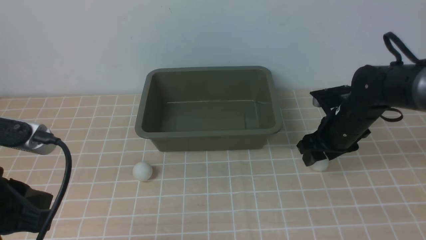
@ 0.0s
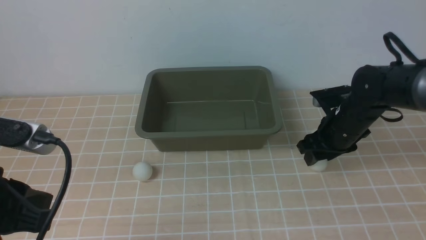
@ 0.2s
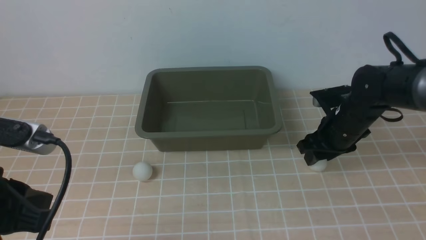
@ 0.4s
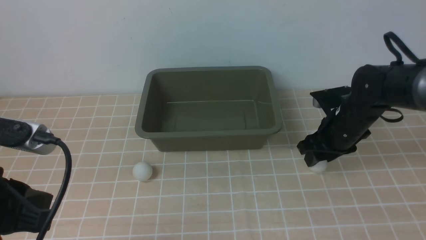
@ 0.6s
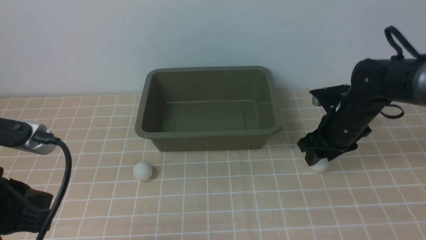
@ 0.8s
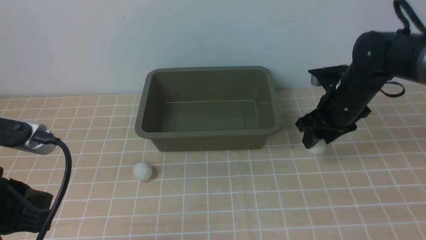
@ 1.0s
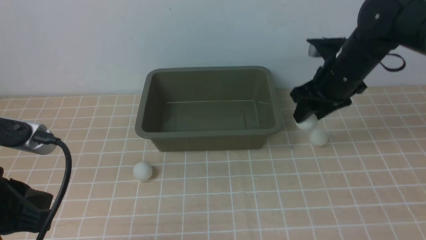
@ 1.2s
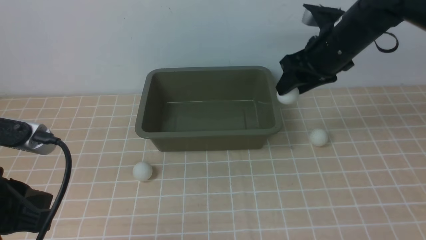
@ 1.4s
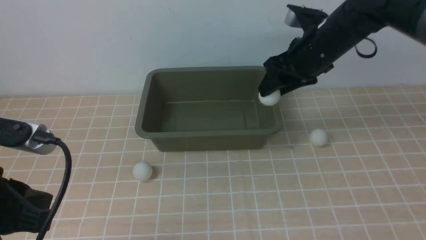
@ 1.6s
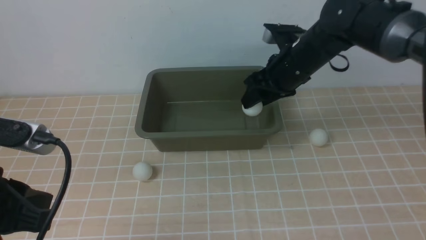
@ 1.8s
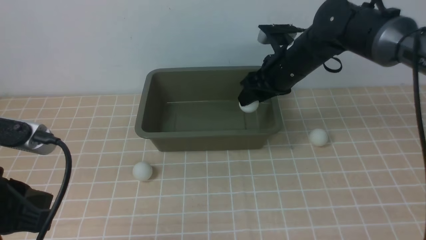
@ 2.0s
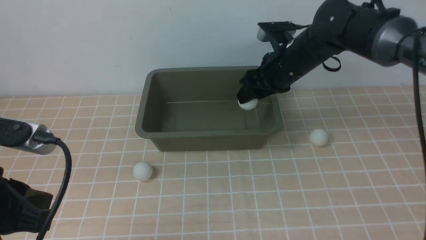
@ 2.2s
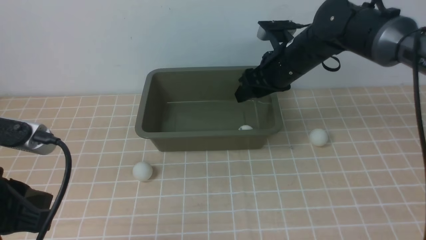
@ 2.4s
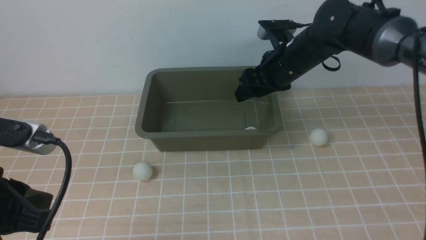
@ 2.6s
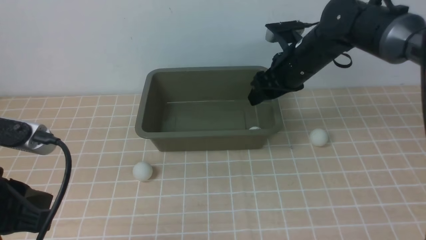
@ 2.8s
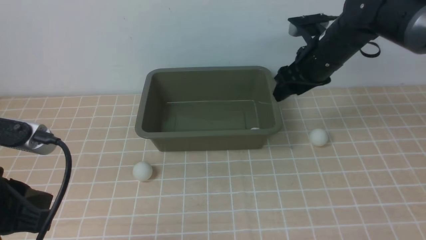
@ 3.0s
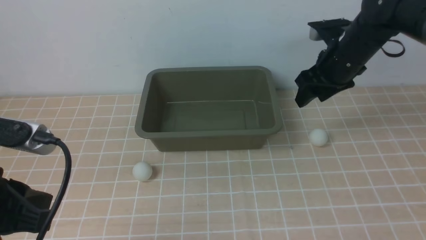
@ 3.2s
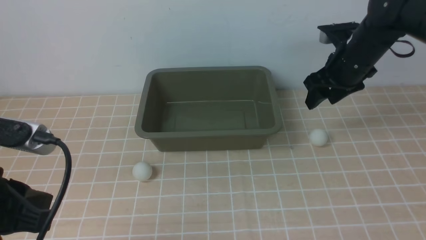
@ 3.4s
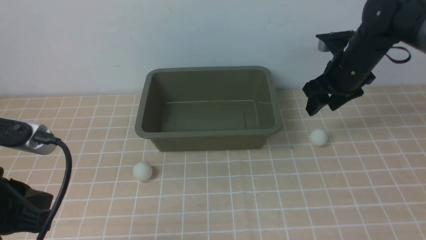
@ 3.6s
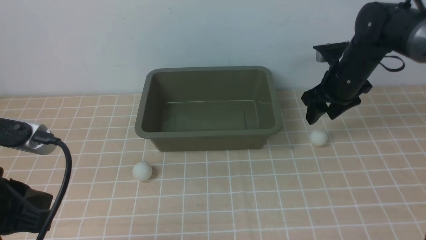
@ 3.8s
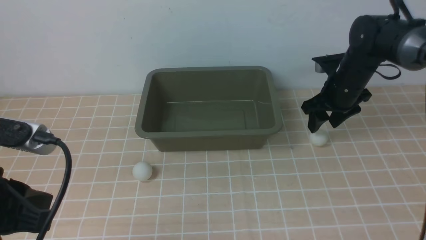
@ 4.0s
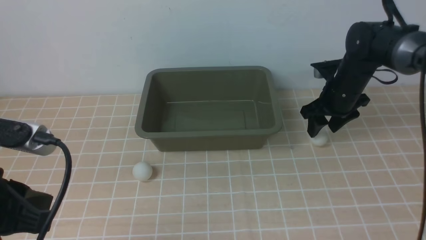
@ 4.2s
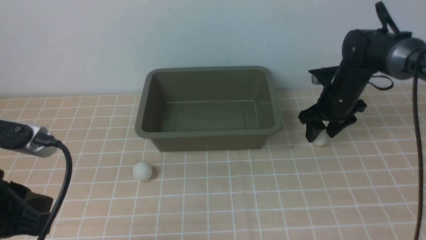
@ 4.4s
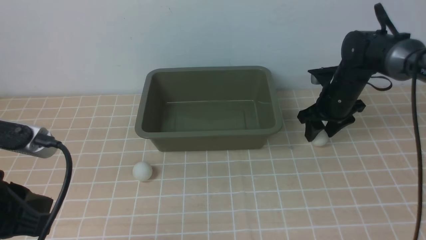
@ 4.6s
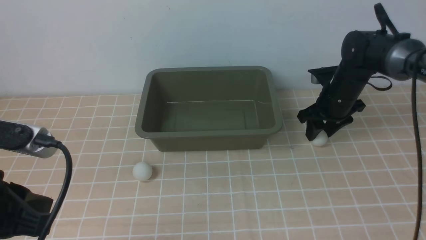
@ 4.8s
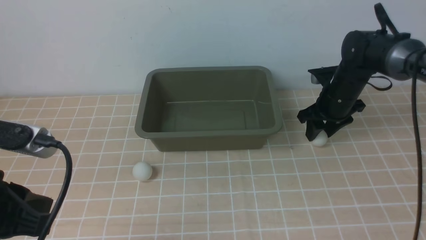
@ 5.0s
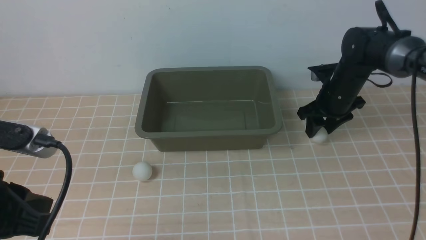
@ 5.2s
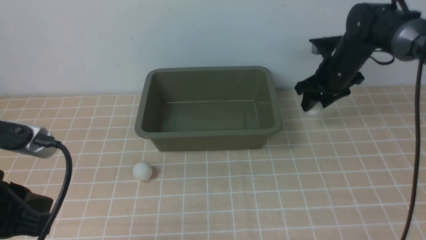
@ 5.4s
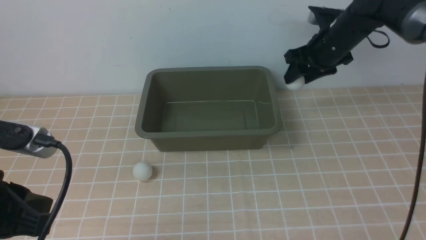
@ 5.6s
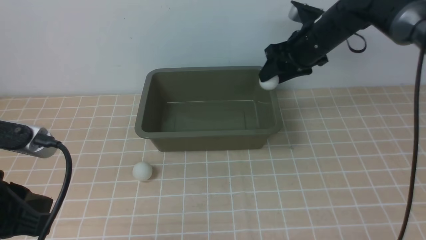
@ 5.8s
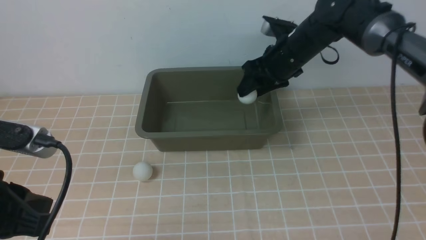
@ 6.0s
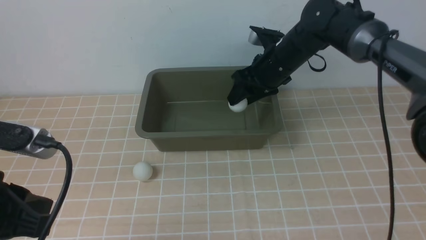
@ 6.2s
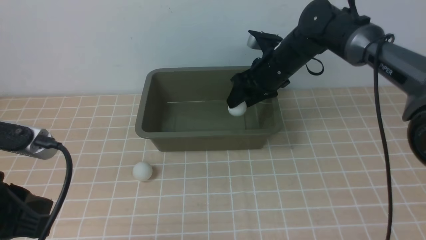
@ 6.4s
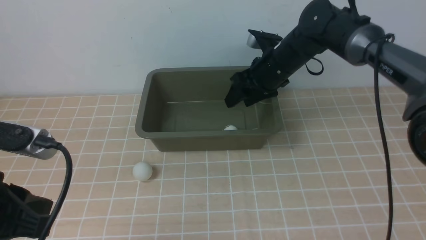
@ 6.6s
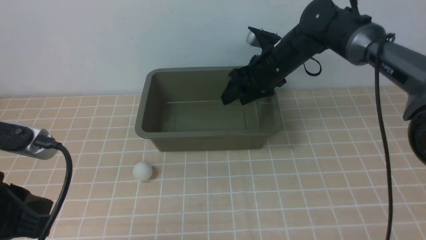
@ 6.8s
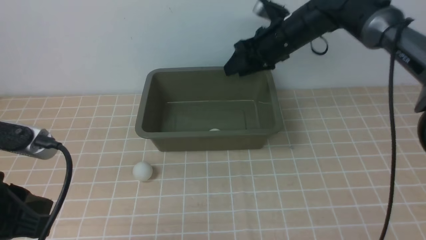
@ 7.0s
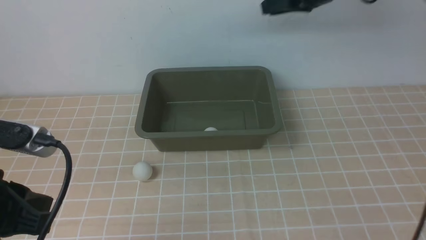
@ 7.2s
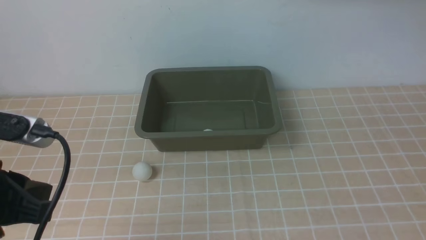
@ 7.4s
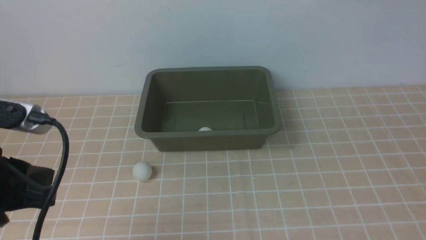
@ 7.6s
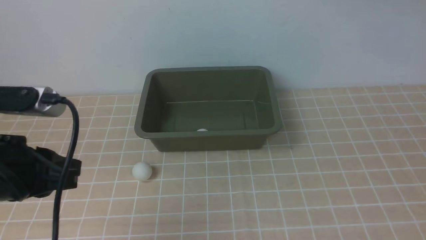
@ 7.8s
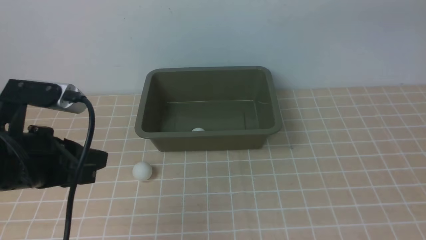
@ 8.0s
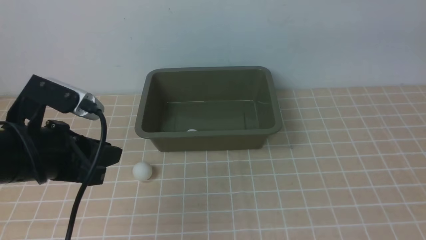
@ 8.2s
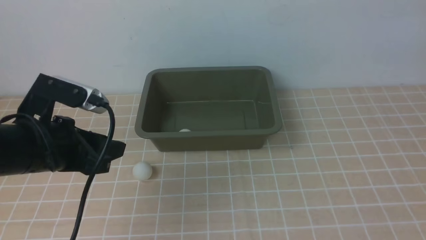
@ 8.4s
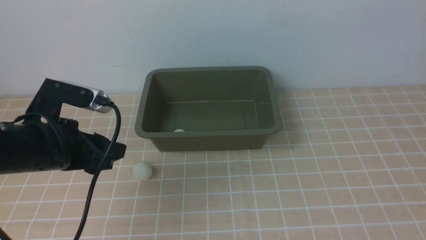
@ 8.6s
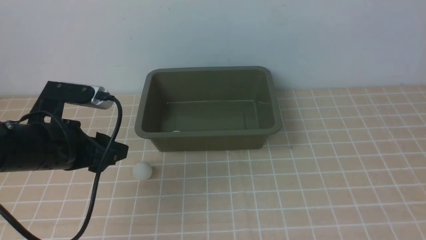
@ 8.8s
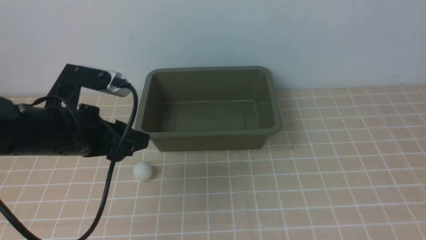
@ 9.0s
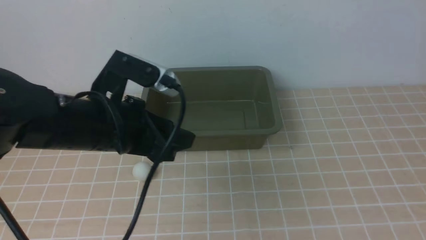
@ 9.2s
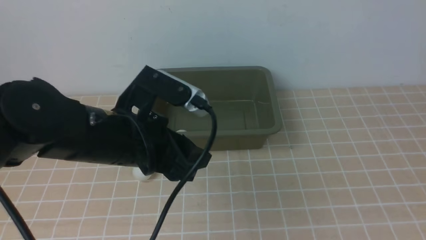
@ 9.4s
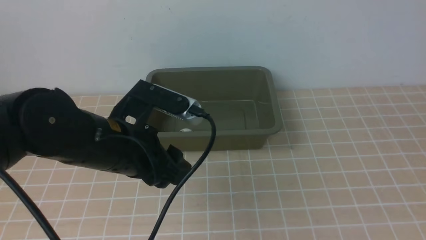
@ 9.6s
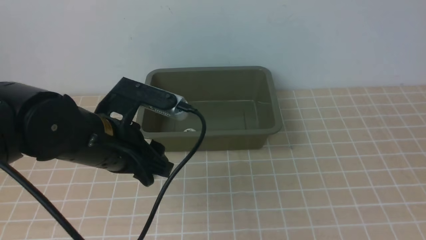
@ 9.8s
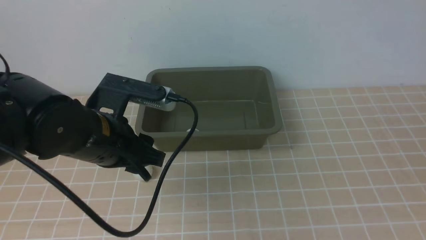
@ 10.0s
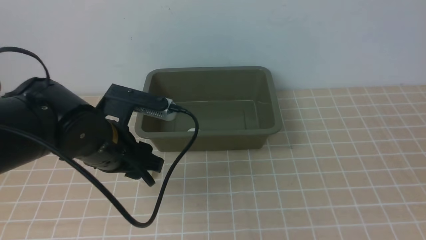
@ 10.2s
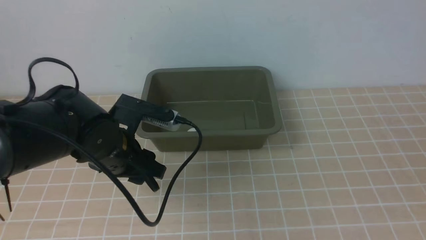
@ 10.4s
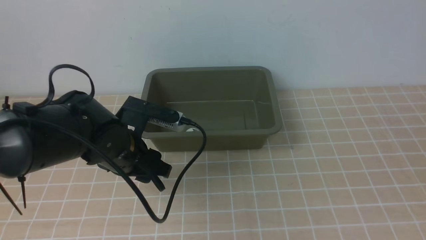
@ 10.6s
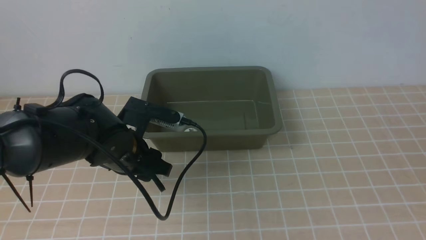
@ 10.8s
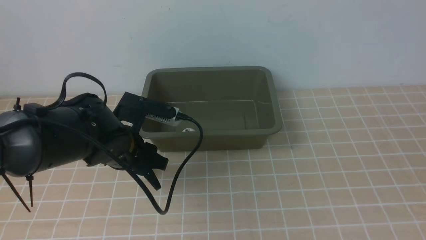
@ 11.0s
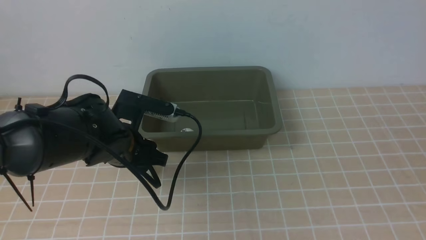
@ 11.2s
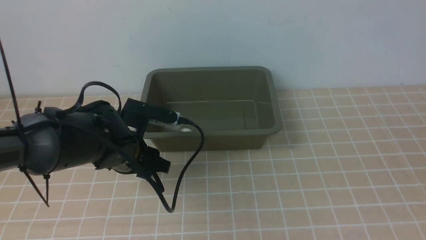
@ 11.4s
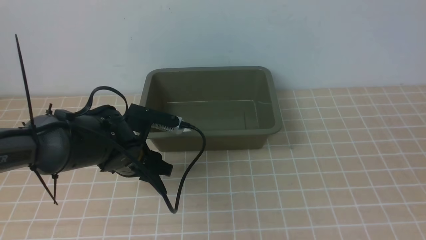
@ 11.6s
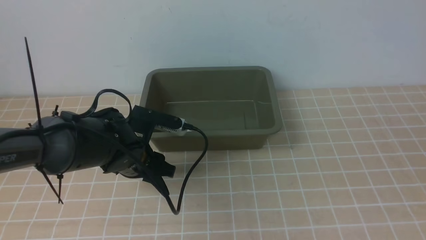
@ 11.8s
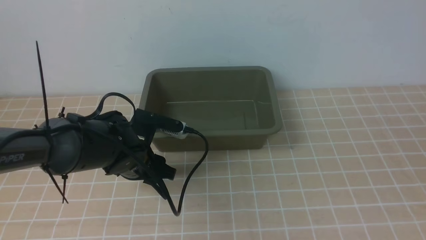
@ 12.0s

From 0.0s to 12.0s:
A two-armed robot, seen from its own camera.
Step, from 1.2s to 2.2s: use the right arm to put the table tennis ball into the box.
Step, from 2.4s to 5.0s: use the right arm to clamp the table tennis ball closest to it.
Step, from 5.4s to 6.6s: use the right arm to put the table tennis ball into the box.
From 0.0s to 1.6s: The right gripper heads upward and to the left, covering roughly 15 cm.
From 1.6s to 3.0s: The grippers make only small movements.
From 3.0s to 4.4s: The right gripper travels downward and to the right by roughly 10 cm.
From 4.4s to 6.0s: The right gripper goes some 10 cm to the left and upward.
From 6.0s to 7.6s: The right gripper is displaced upward and to the right by some 25 cm, and closes.
From 7.6s to 9.0s: The left gripper is displaced forward by roughly 10 cm, and opens its fingers. Meanwhile the right gripper shifts approximately 30 cm backward.
From 9.0s to 10.4s: The right gripper moves backward and downward, some 15 cm, while the left gripper is displaced to the right by about 5 cm.
From 10.4s to 12.0s: The left gripper heads downward, covering about 5 cm.

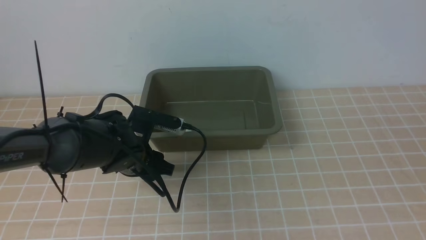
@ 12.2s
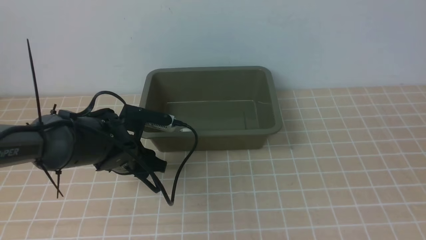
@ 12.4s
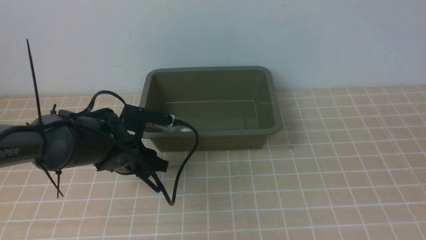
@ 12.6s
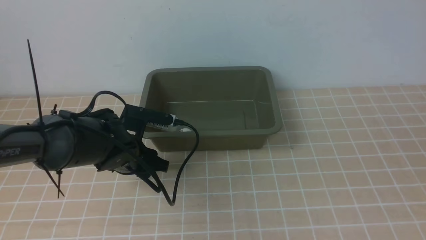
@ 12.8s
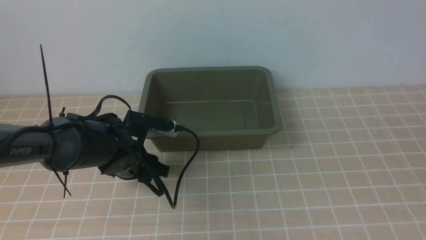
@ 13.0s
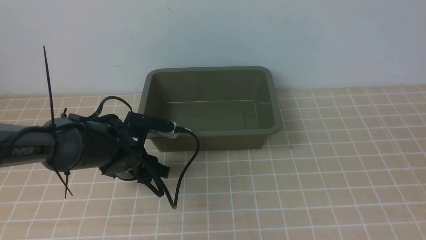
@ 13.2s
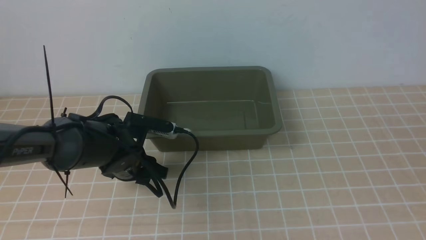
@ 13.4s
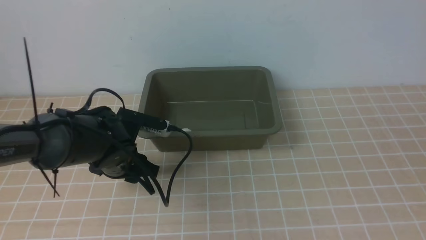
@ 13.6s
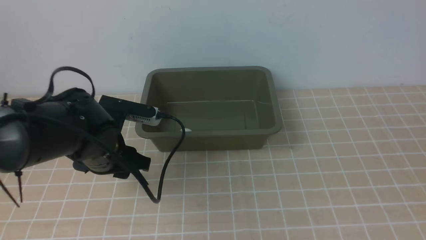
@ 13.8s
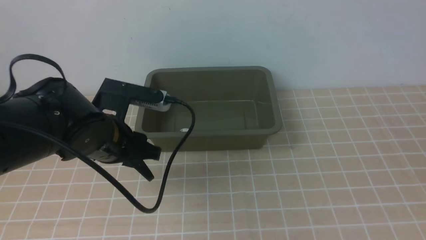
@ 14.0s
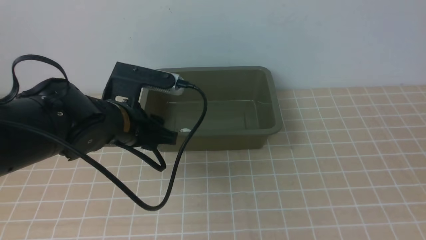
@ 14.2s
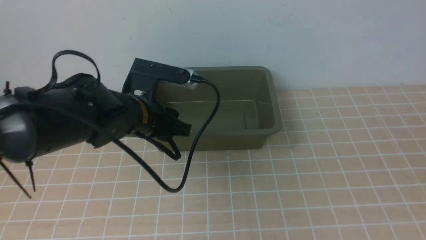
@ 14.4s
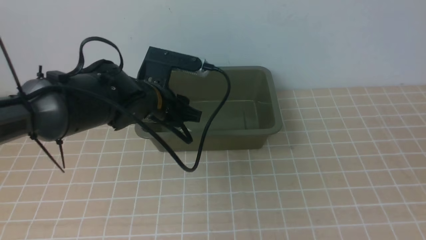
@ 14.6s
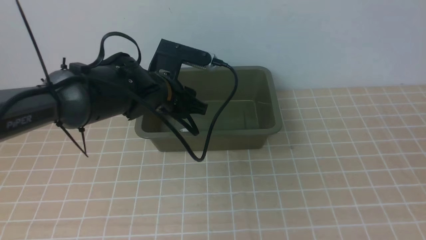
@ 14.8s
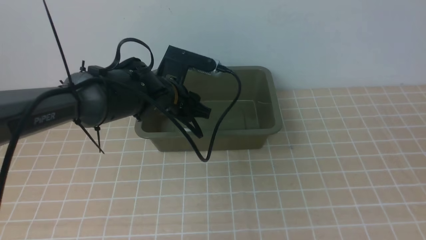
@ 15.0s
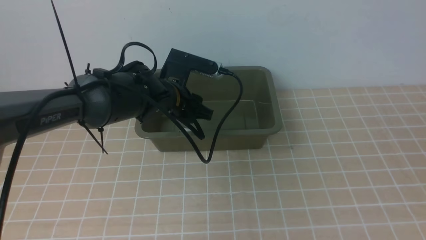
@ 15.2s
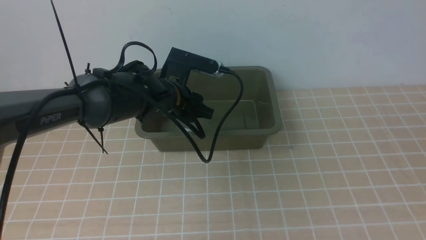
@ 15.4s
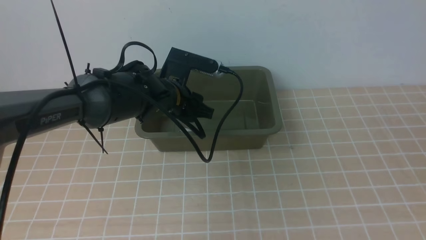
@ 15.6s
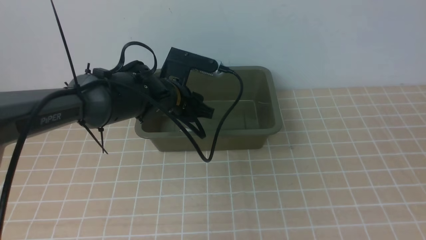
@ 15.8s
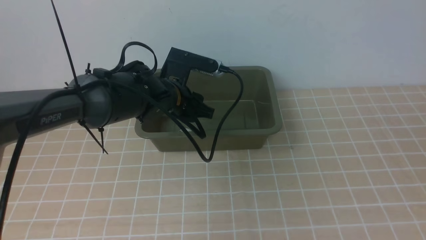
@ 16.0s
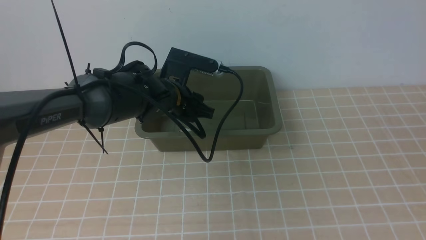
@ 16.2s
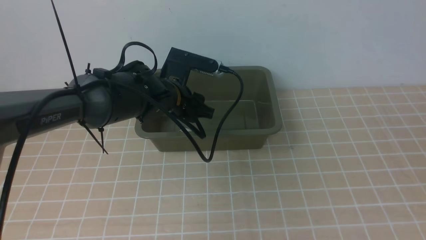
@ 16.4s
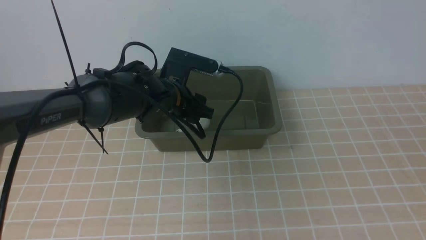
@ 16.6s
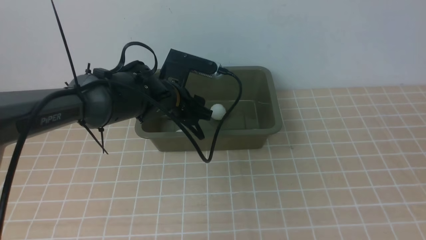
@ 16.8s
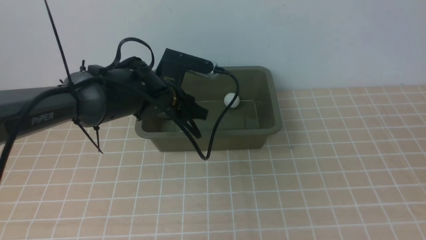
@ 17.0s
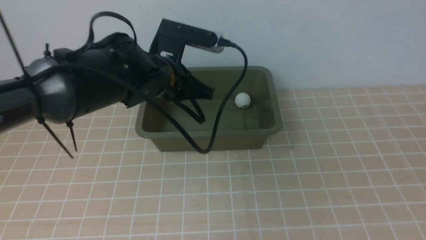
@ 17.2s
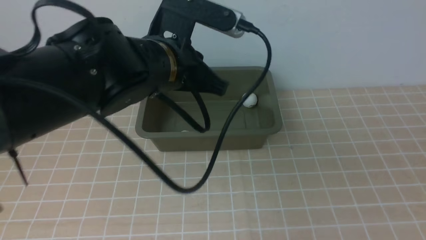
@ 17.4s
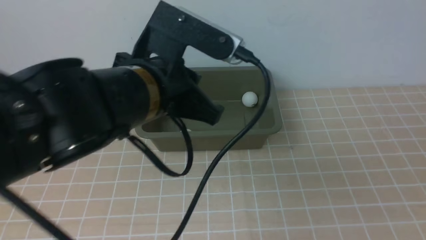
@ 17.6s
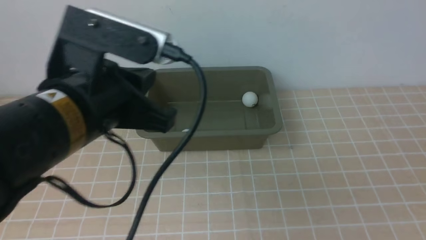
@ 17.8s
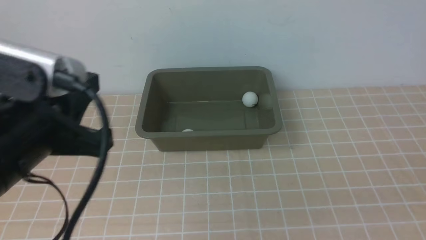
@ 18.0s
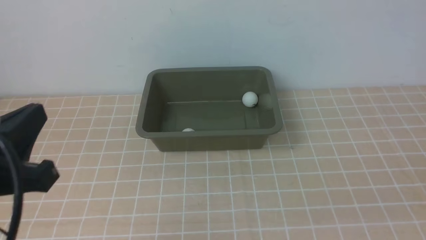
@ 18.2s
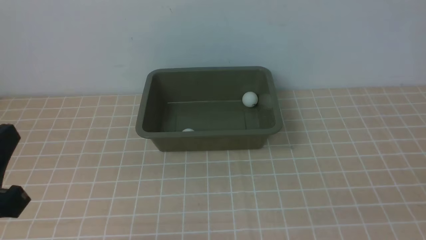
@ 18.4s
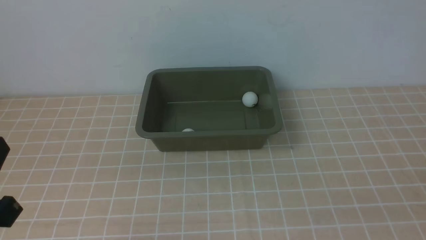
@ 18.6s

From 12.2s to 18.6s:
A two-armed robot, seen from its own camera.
Step, from 14.2s to 17.0s: use the left arm to put the table tennis ball into the box.
From 12.2s to 13.8s: There are only small adjustments of the grippers.
From 13.8s to 15.4s: The left gripper heads forward and to the right, covering some 10 cm.
From 15.4s to 17.0s: The two grippers keep their place.
From 17.0s to 18.6s: The left gripper heads backward and to the left, covering approximately 35 cm, and closes up. Meanwhile the right gripper shifts about 10 cm downward.
